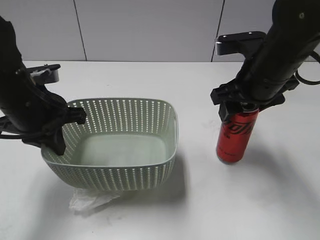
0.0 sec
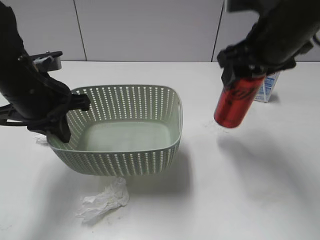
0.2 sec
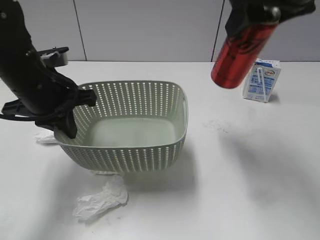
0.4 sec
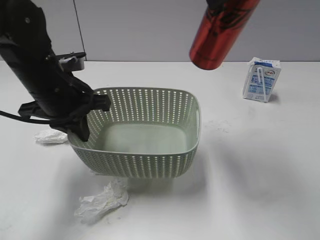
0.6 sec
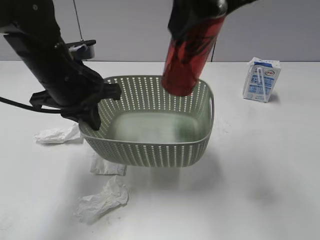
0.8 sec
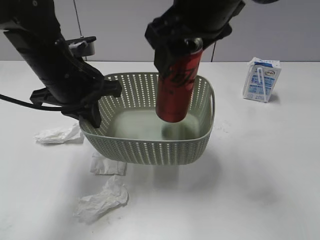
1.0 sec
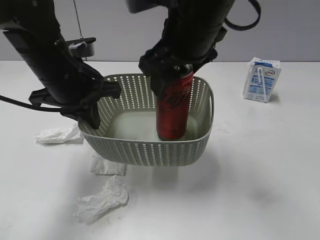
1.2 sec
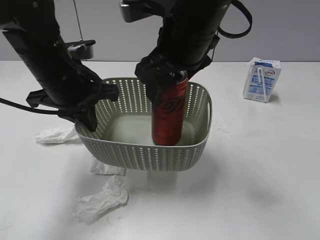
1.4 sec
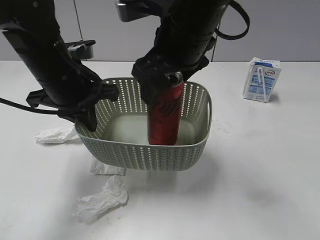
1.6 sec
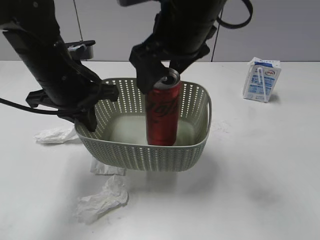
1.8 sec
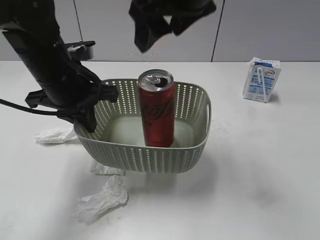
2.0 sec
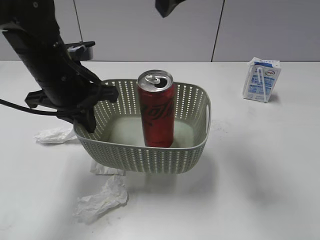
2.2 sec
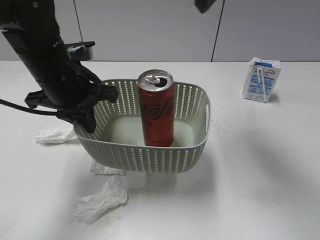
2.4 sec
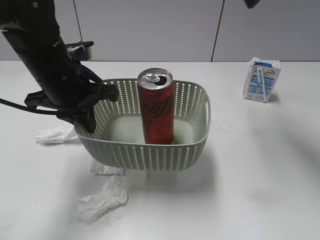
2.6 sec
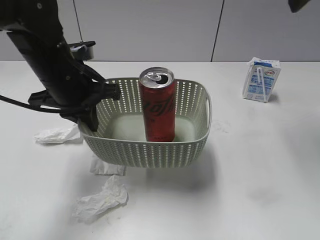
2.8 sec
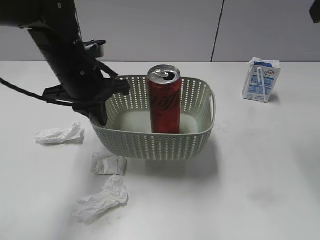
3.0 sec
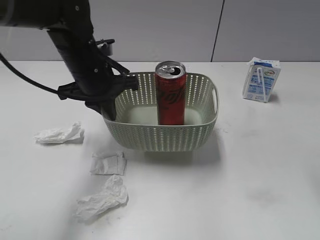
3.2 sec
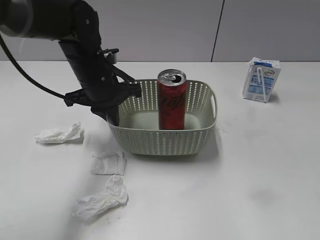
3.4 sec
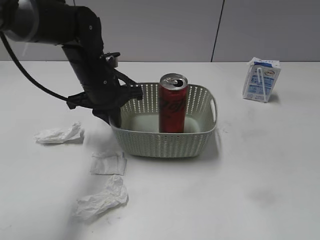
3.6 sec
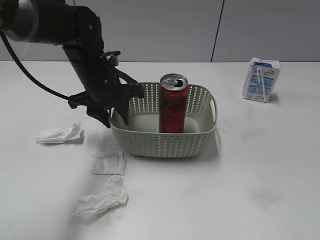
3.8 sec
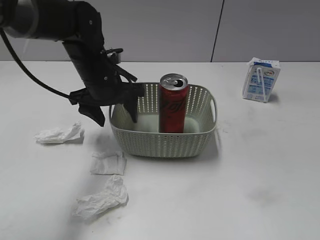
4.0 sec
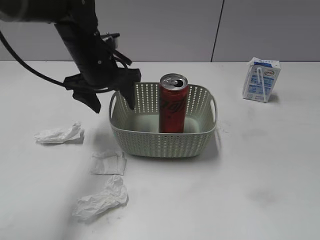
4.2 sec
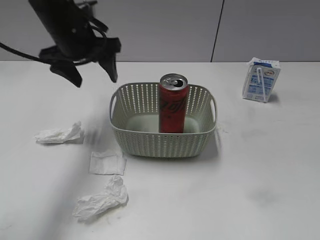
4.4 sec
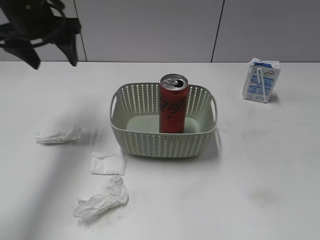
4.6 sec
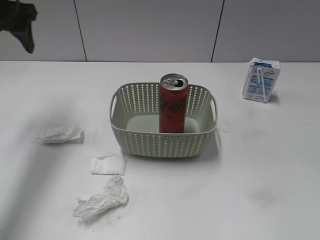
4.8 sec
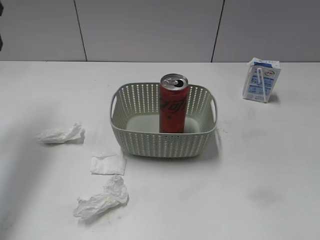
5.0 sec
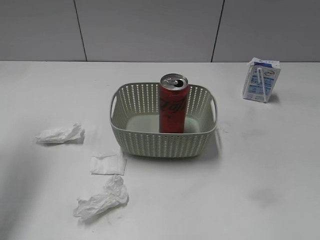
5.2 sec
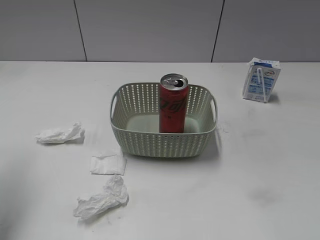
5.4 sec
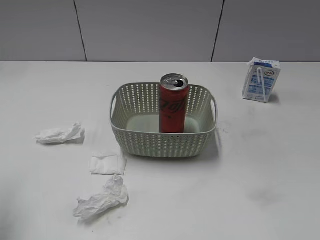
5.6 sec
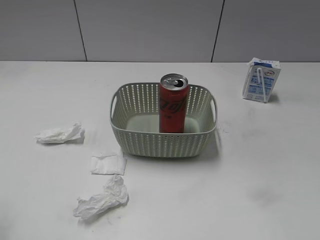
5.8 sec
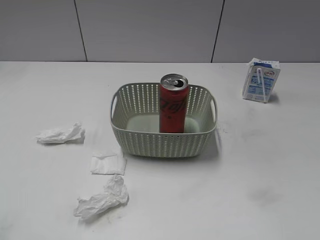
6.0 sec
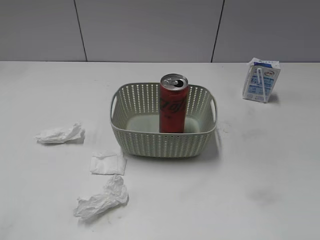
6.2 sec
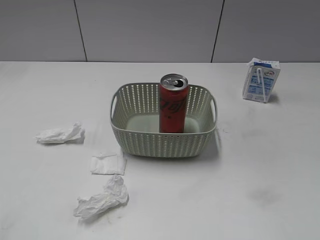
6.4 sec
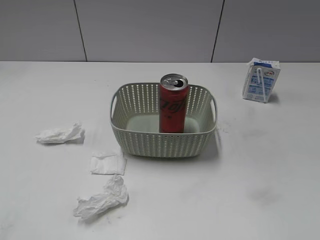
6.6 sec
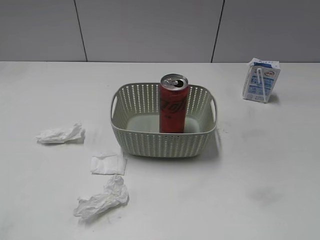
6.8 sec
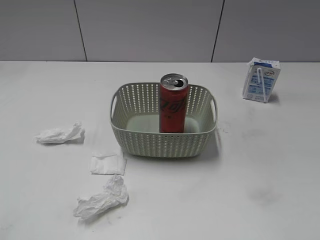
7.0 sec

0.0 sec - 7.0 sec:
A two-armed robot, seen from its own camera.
Step, 0.2 sec - 1.8 sec: Place the cola can in the basket with right gripper.
Step, 2.0 sec - 4.0 sec: Place the basket on the table with left gripper.
0.0 sec - 1.4 sec: The right gripper heads to the left, covering roughly 10 cm, and travels upward and back again, roughly 20 cm each way, while the left gripper shifts by roughly 5 cm.
1.4 sec - 2.8 sec: The right gripper shifts roughly 25 cm to the right and upward, and opens up.
2.8 sec - 4.2 sec: The right gripper shifts about 35 cm backward and downward. Meanwhile the left gripper goes about 5 cm forward, and opens.
4.2 sec - 5.6 sec: The left gripper moves backward, to the left and upward, some 30 cm.
5.6 sec - 7.0 sec: The left gripper goes some 20 cm backward.

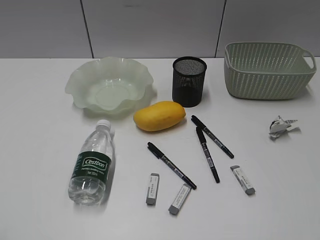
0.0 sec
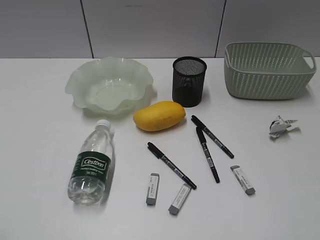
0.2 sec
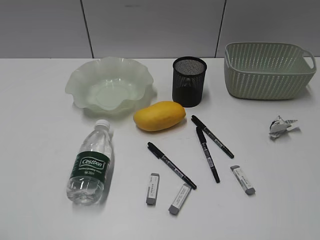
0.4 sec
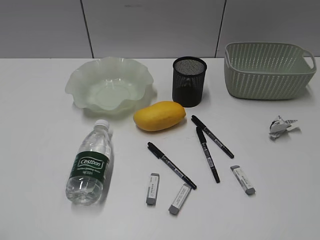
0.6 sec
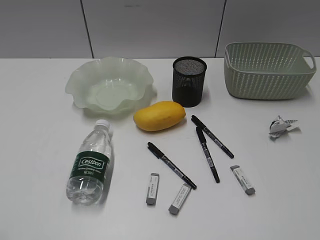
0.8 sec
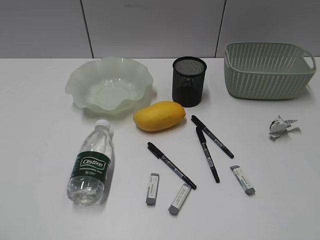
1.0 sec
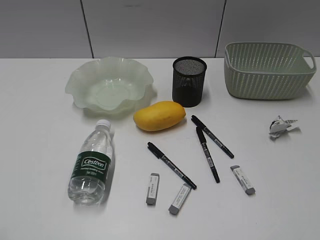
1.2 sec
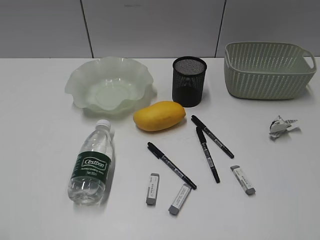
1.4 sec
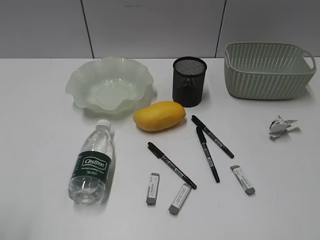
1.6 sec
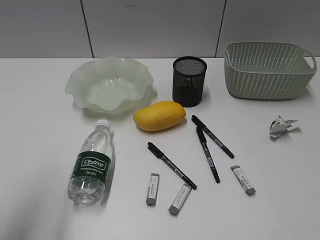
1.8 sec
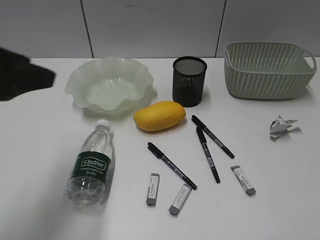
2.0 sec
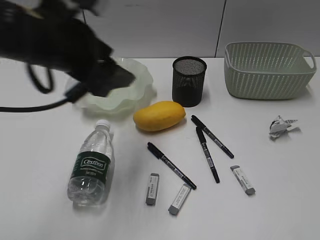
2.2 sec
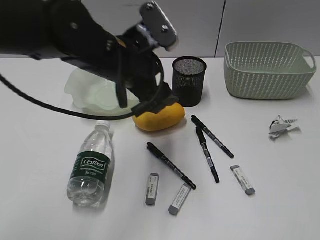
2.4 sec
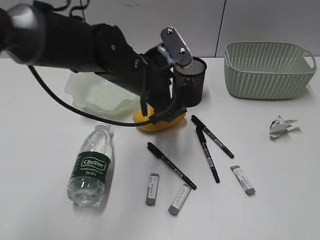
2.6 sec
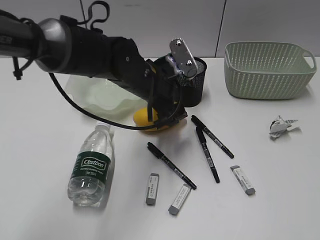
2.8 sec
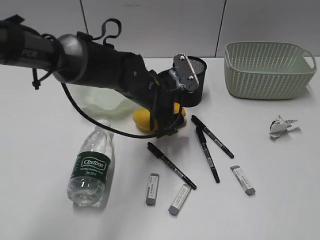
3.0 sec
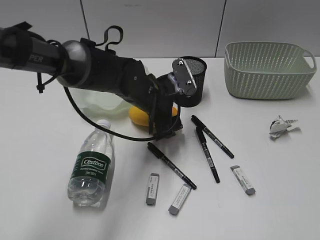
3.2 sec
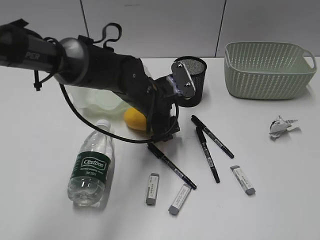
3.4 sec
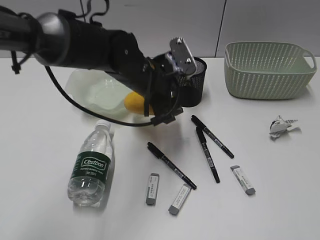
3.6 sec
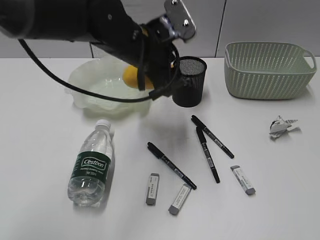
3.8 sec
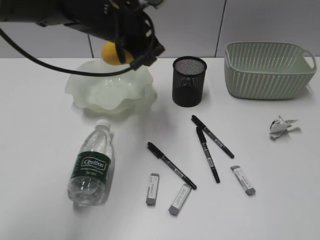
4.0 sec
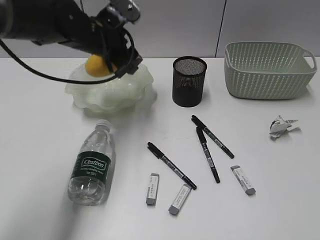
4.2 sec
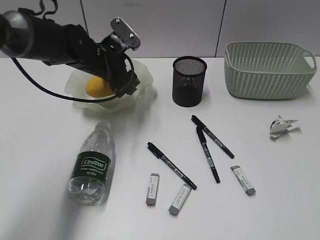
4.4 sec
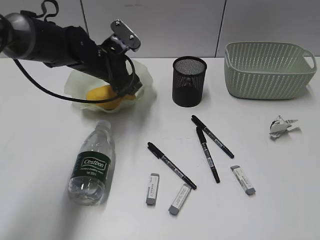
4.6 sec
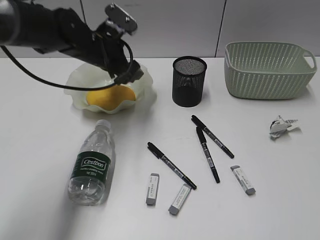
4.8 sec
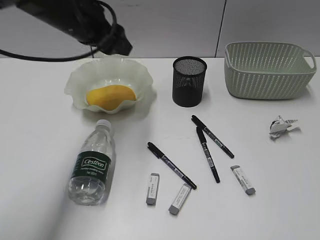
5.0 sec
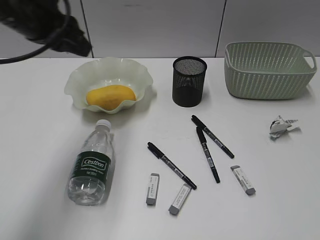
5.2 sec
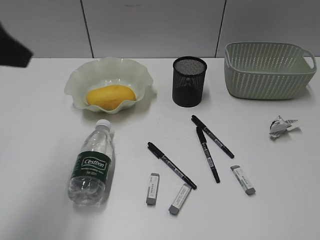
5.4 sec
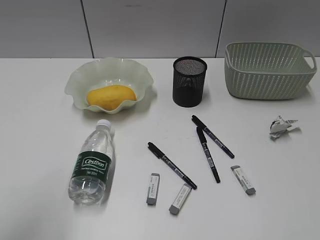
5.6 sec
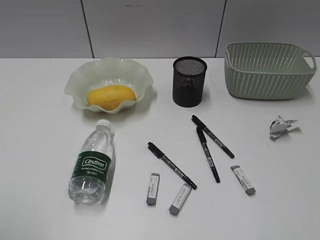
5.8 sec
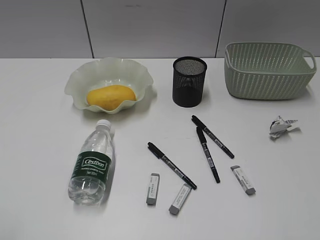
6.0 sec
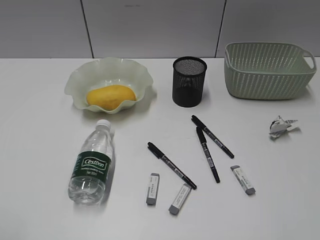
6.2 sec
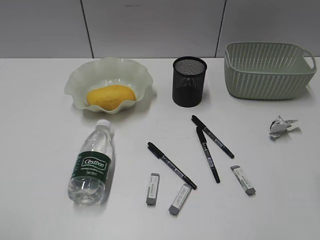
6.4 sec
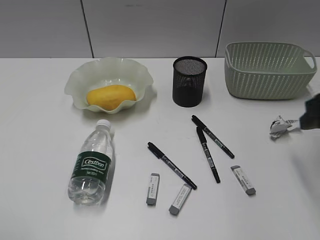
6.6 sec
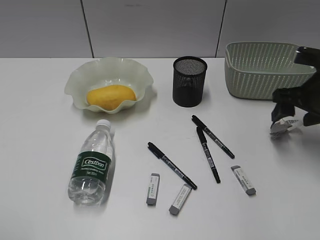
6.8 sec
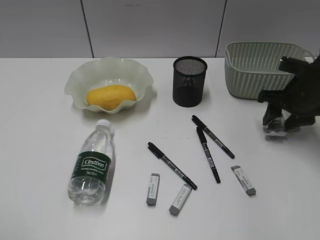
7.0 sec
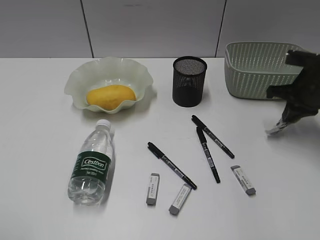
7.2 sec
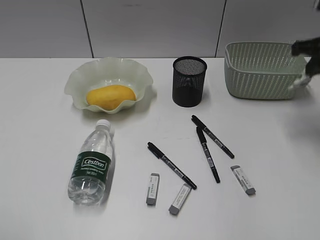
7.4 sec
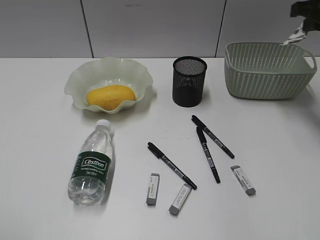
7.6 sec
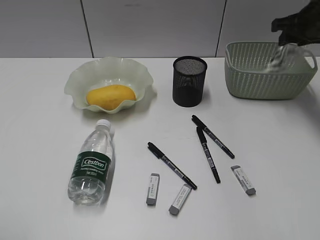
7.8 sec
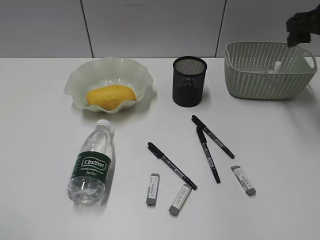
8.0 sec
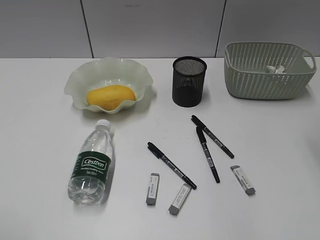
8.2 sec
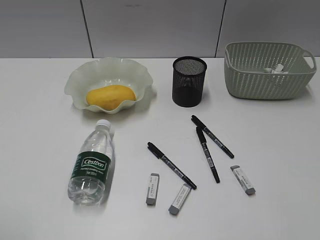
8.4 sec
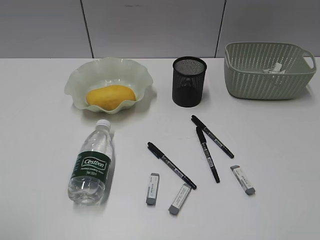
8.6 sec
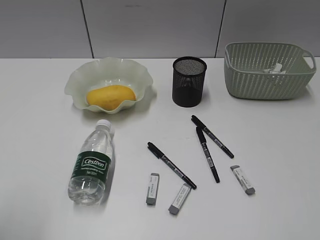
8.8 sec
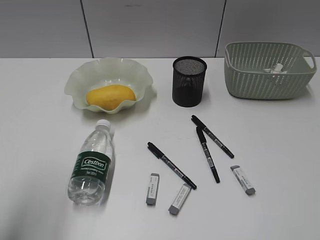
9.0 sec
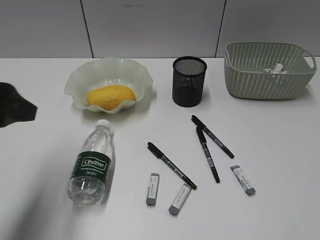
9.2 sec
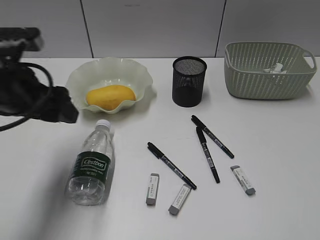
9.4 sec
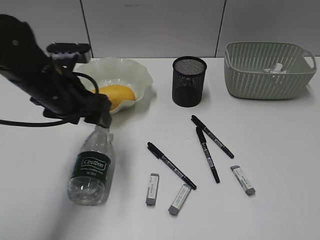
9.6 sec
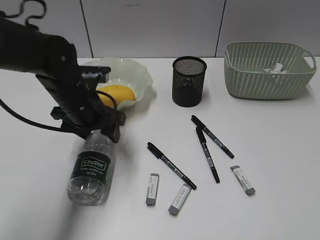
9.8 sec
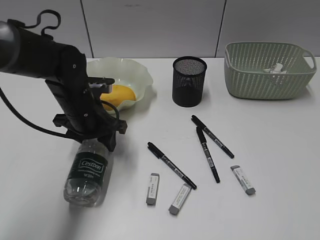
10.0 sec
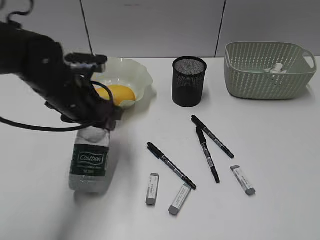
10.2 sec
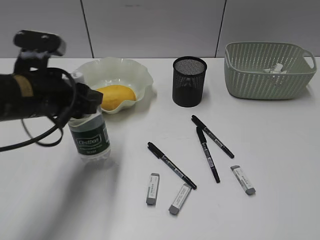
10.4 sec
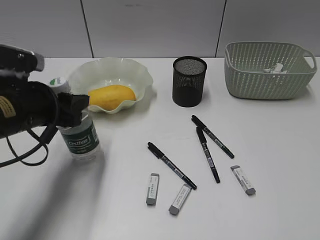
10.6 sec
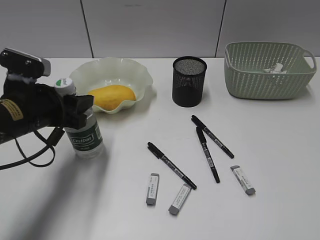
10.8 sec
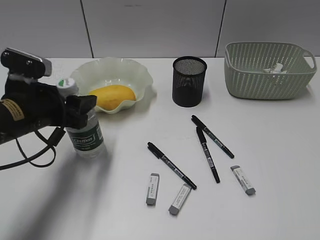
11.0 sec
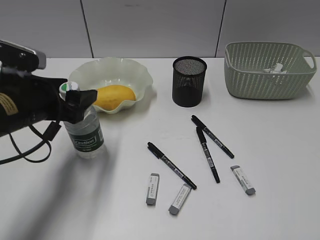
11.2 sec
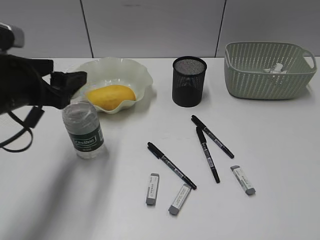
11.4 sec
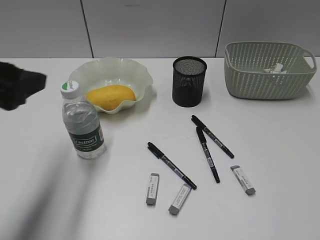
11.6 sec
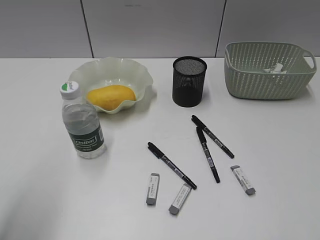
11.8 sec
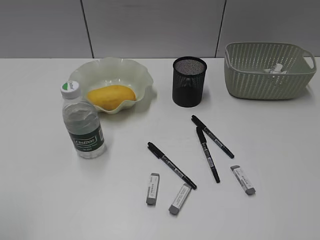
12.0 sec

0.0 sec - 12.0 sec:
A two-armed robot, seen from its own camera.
Step, 1.4 sec - 3.2 sec: Grasp the mango with left gripper.
Step, 3.4 sec - 4.8 sec: Place the mango in the plate with left gripper.
Step, 5.0 sec - 7.2 sec: Grasp the waste paper with right gripper.
Step, 7.4 sec - 7.8 sec: Place the waste paper in the basket with right gripper.
Step, 8.0 sec - 10.0 sec: Grasp the bottle with left gripper.
Step, 10.2 sec - 11.2 sec: Stand the bottle with left gripper.
1.6 sec - 3.0 sec: The left gripper heads forward, to the right and downward, covering some 50 cm, and opens its fingers.
3.0 sec - 4.4 sec: The left gripper shifts roughly 10 cm to the left and forward, and goes upward and returns, about 10 cm each way.
4.4 sec - 6.0 sec: The left gripper moves backward and to the left, some 50 cm, and closes, then opens again.
6.0 sec - 7.6 sec: The right gripper moves forward, roughly 40 cm, and closes its fingers.
7.6 sec - 9.0 sec: The left gripper shifts roughly 10 cm forward; the right gripper shifts roughly 35 cm backward, and opens.
9.0 sec - 10.4 sec: The left gripper heads forward, to the right and downward, covering some 20 cm.
10.4 sec - 12.0 sec: The left gripper heads backward, to the left and upward, covering some 30 cm, and opens and closes again.

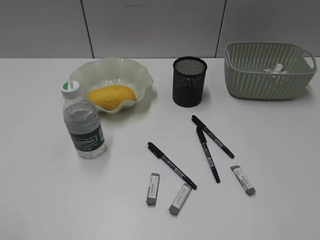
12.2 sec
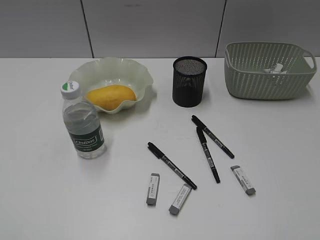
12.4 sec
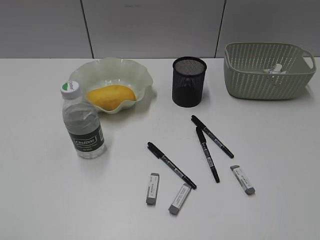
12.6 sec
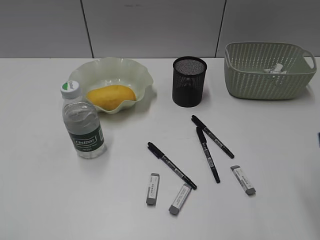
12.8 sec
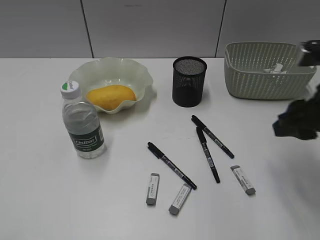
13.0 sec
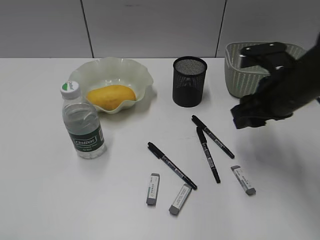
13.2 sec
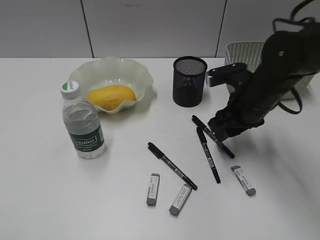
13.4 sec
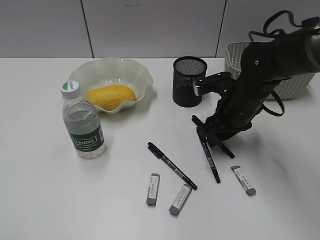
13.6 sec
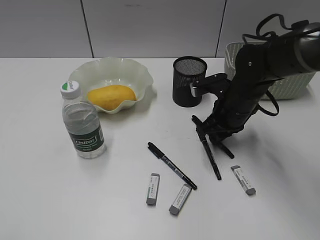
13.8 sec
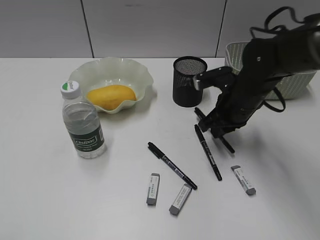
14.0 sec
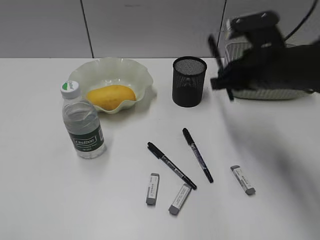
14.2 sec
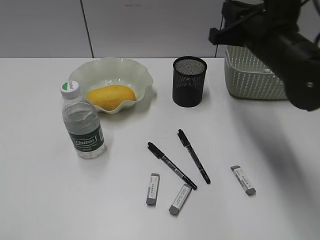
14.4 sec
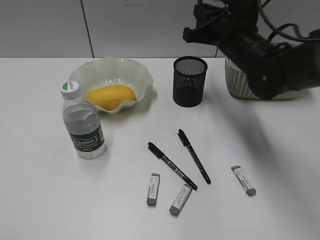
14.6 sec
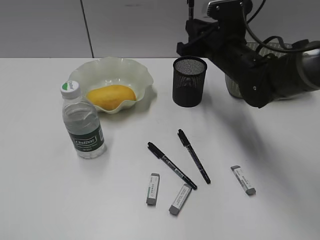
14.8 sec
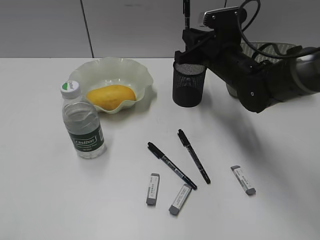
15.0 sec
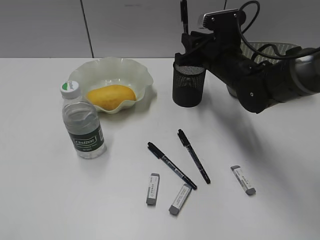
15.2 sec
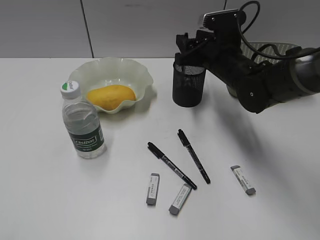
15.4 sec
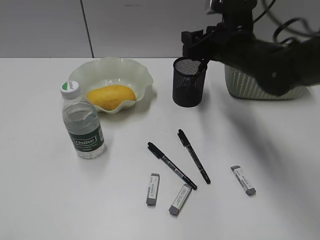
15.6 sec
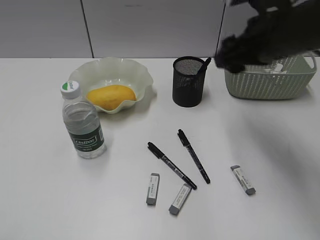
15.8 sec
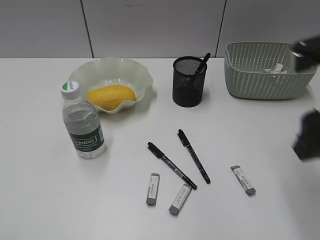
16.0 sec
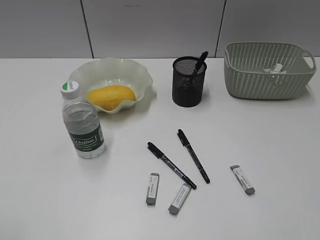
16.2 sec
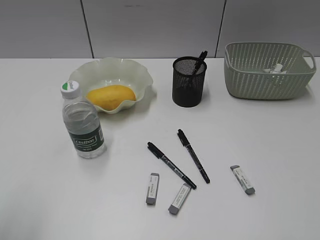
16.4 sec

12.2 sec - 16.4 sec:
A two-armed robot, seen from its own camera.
Step, 12.2 sec - 13.8 sec: Grasp the black pen with right gripper.
Step, 14.0 sec - 15.4 sec: Place the black pen in pen holder with right gripper.
12.2 sec - 13.6 sec: The right gripper travels forward, downward and to the left by approximately 40 cm.
13.6 sec - 15.0 sec: The right gripper shifts approximately 5 cm forward, and closes its fingers.
15.0 sec - 16.4 sec: The right gripper heads backward and to the right, covering roughly 40 cm, and opens its fingers, while the left gripper travels forward by some 5 cm.
